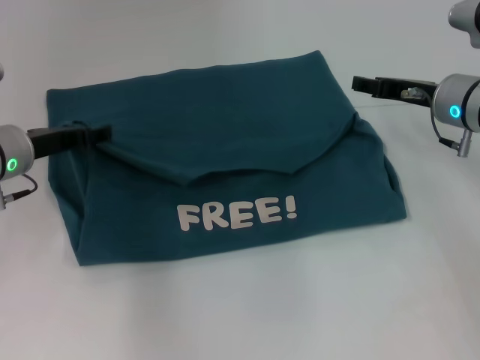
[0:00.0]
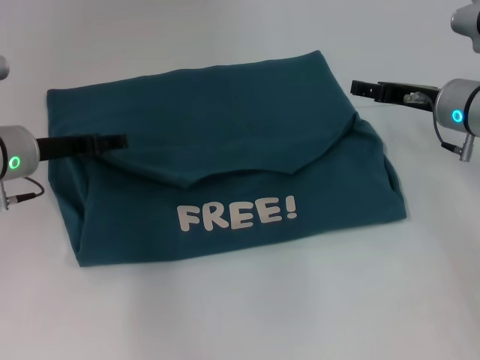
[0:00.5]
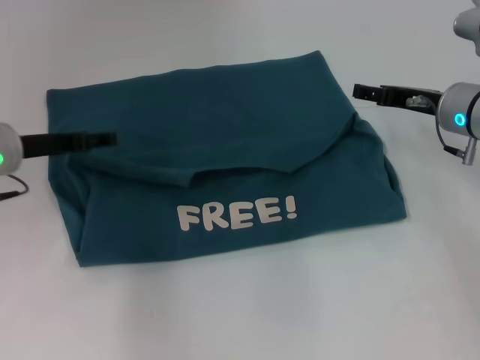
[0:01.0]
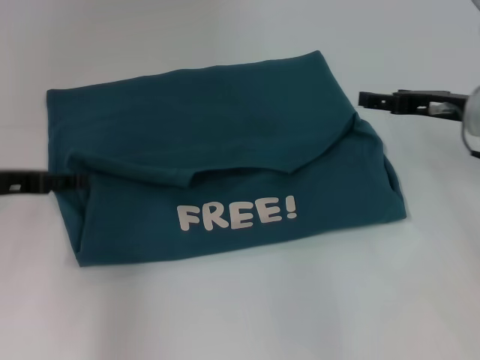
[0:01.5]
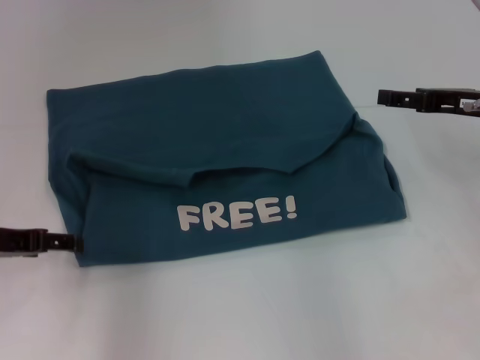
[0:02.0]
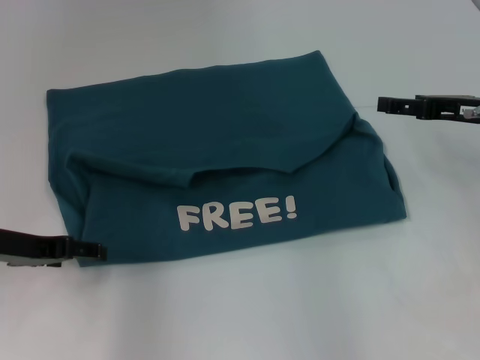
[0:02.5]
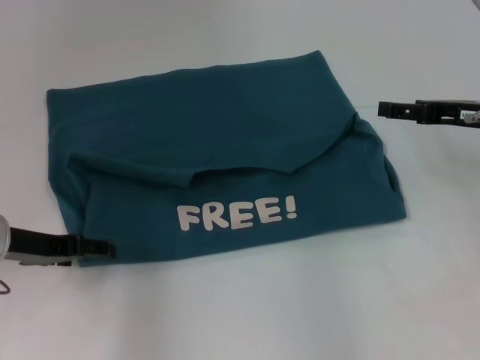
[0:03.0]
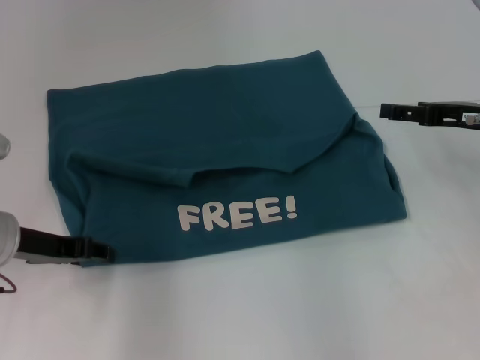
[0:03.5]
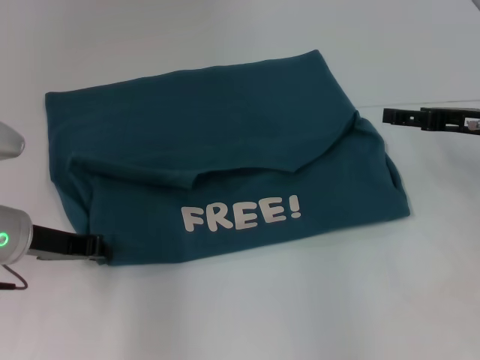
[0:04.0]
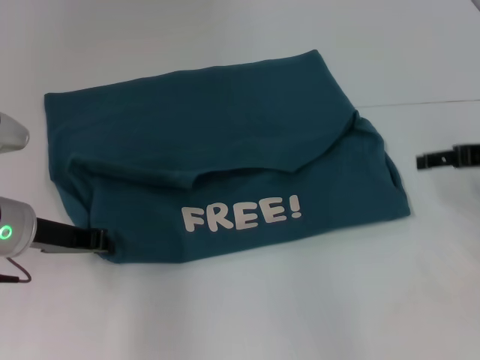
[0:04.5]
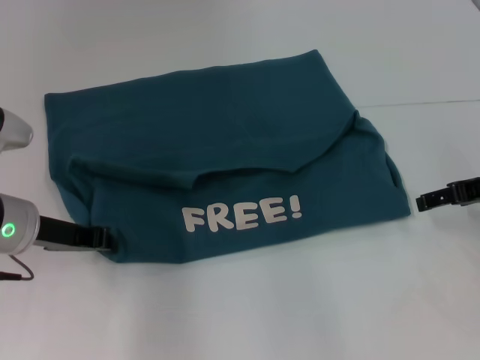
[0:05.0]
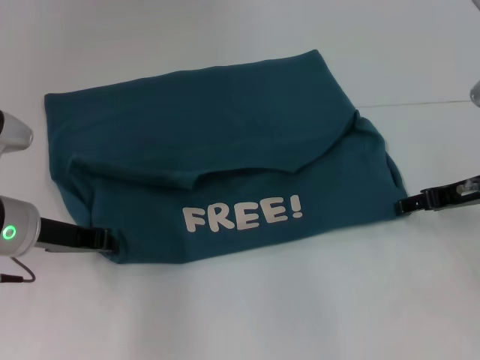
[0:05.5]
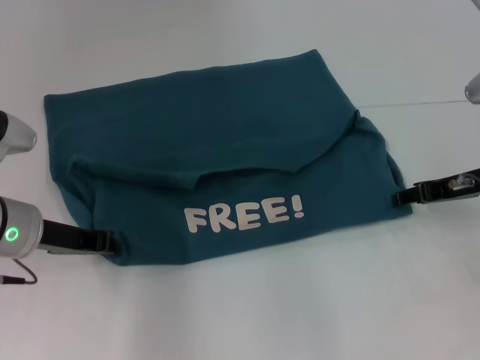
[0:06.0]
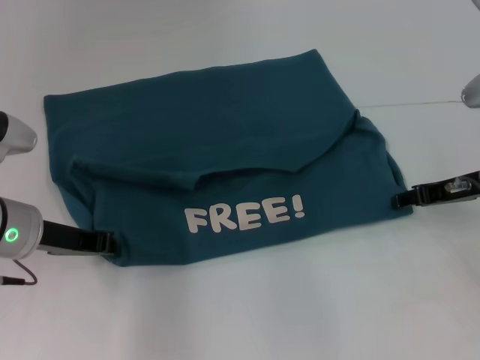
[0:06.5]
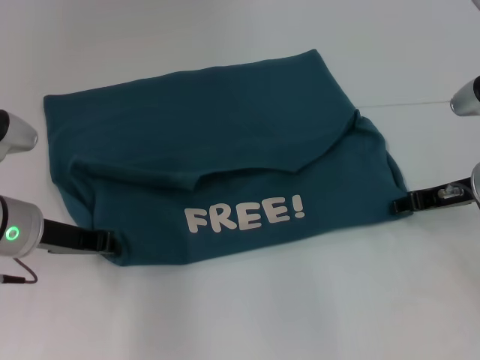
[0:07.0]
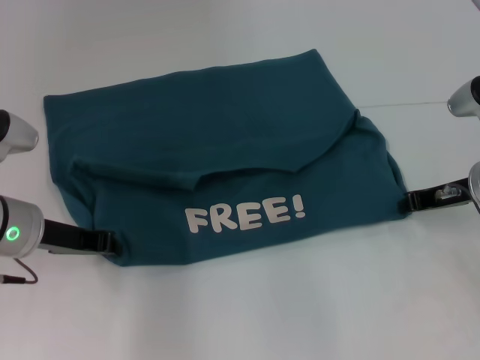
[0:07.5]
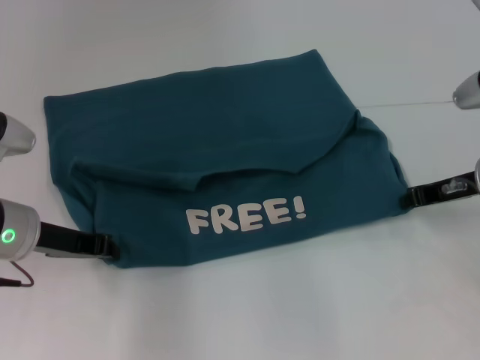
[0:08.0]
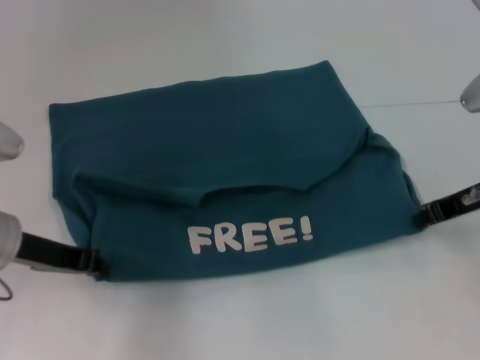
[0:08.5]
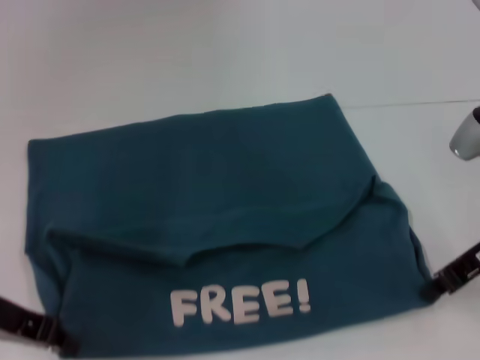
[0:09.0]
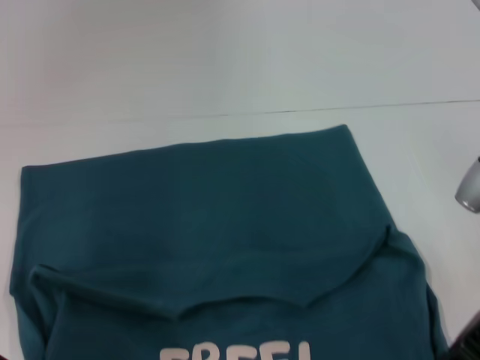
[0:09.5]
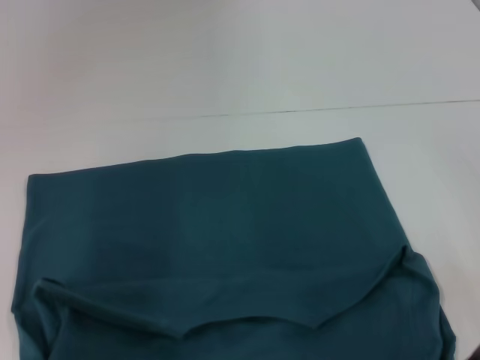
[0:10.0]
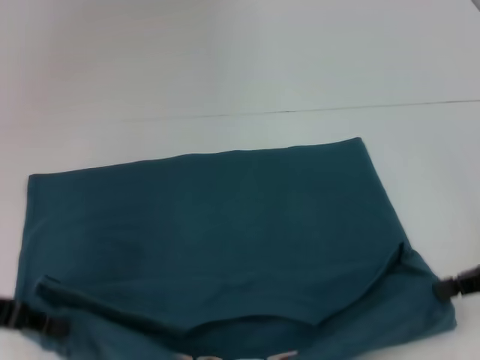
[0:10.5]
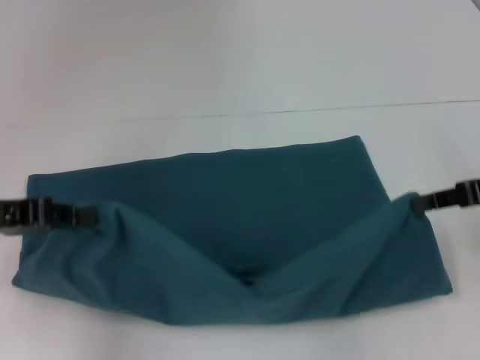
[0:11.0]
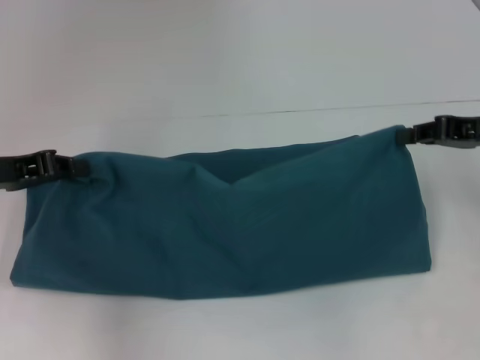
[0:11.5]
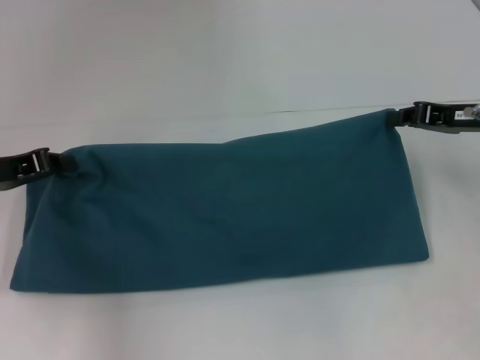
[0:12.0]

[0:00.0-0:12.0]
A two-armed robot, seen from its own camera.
Step, 0:01.0 to 0:09.5: Pull the clothes with your left hand.
Step, 0:01.0 to 0:09.5: Pull the clothes with your right hand.
0:00.0 to 0:02.0: The left gripper heads backward, covering some 10 cm, and opens, while the right gripper ends up roughly 10 cm from where it was, and opens.
0:02.0 to 0:04.0: The left gripper shifts approximately 5 cm to the right, and closes.
0:06.0 to 0:08.0: The right gripper closes.
0:08.0 to 0:10.0: Both grippers travel together backward, about 10 cm.
0:10.0 to 0:12.0: Both grippers travel together forward, some 10 cm.

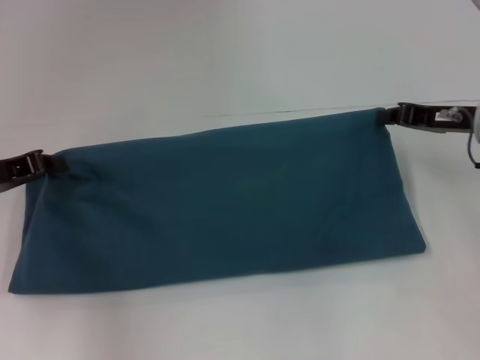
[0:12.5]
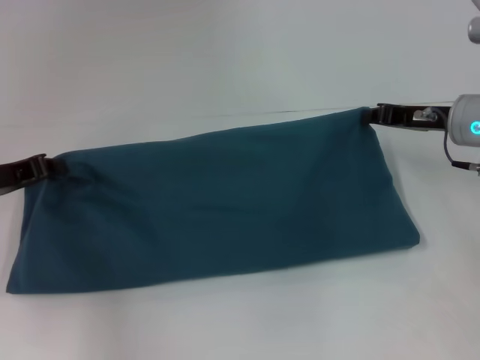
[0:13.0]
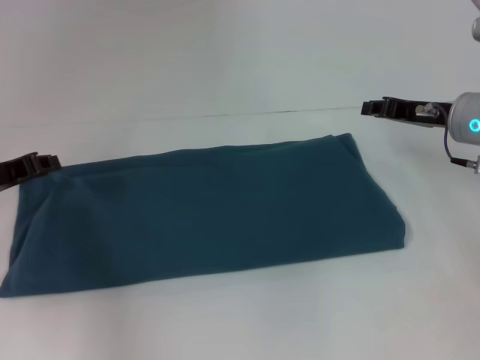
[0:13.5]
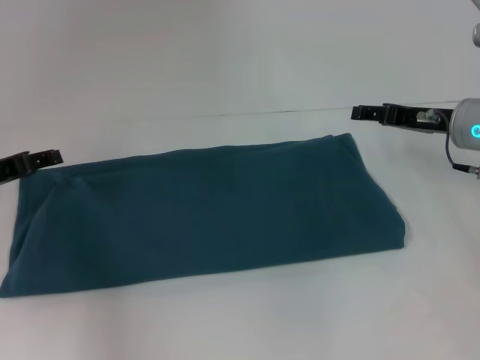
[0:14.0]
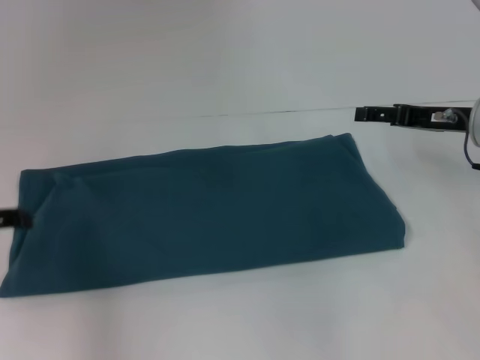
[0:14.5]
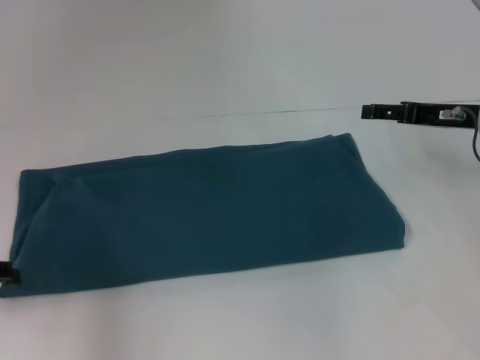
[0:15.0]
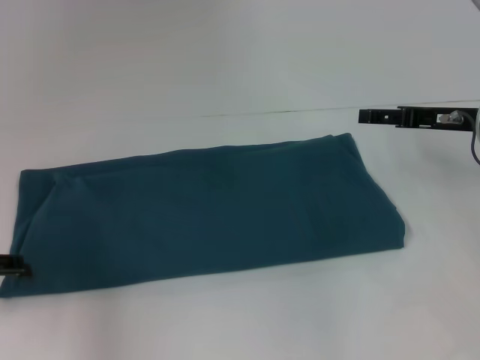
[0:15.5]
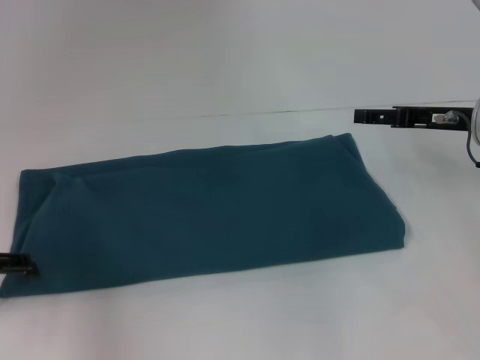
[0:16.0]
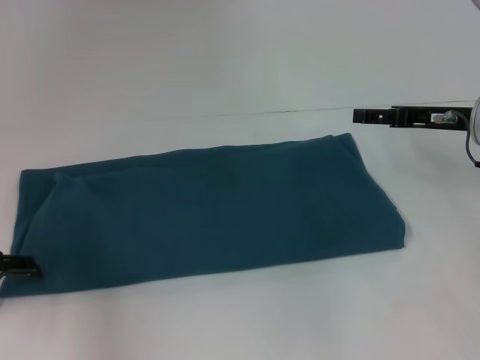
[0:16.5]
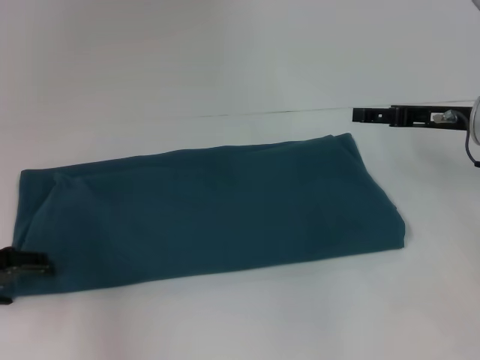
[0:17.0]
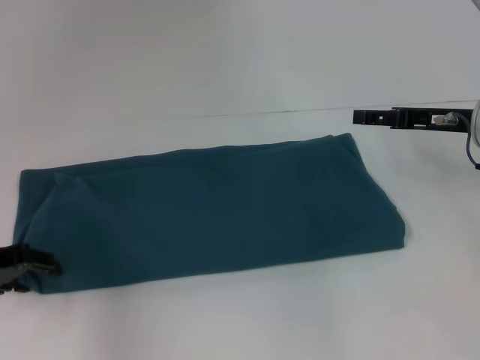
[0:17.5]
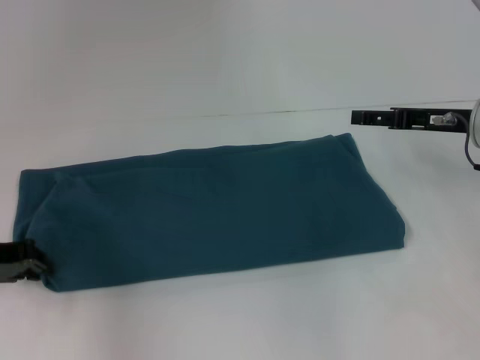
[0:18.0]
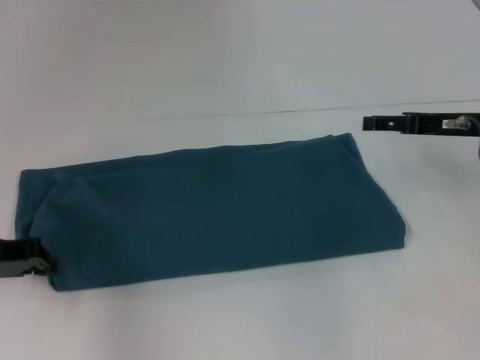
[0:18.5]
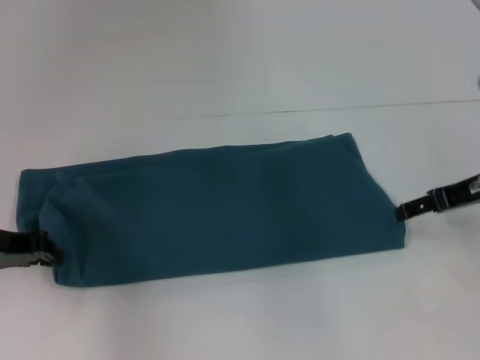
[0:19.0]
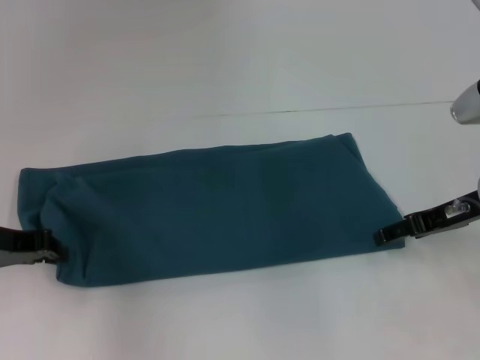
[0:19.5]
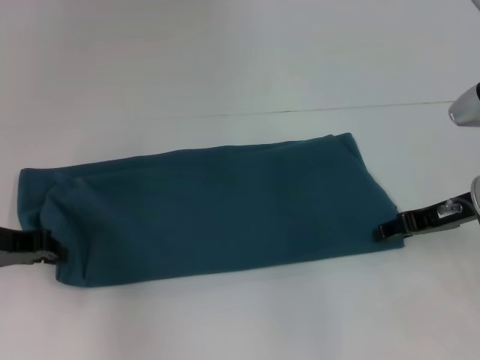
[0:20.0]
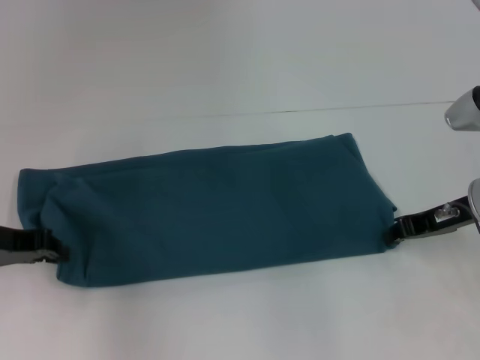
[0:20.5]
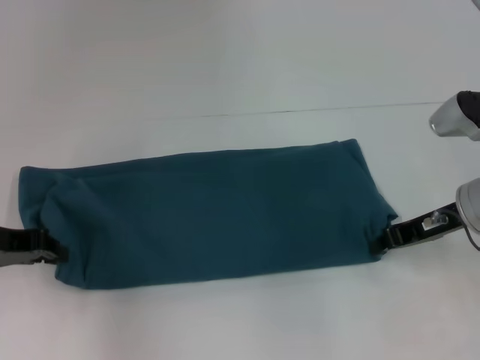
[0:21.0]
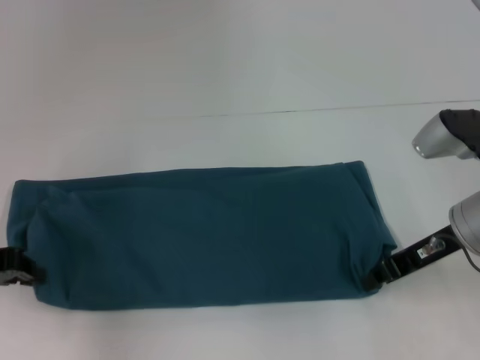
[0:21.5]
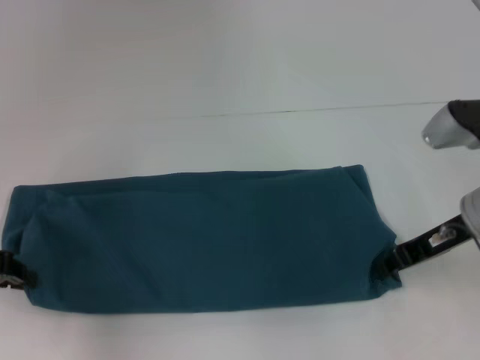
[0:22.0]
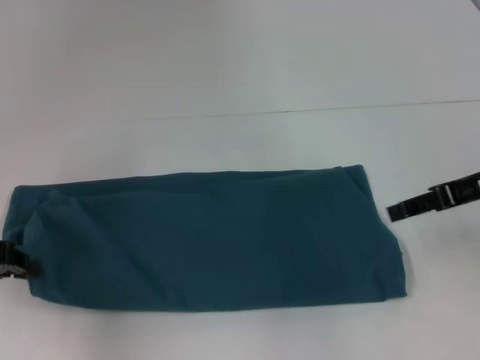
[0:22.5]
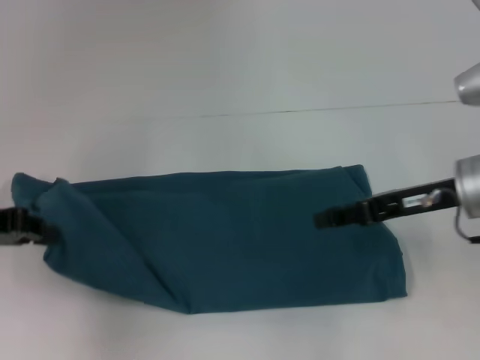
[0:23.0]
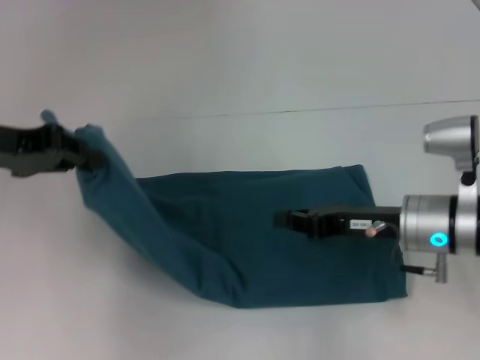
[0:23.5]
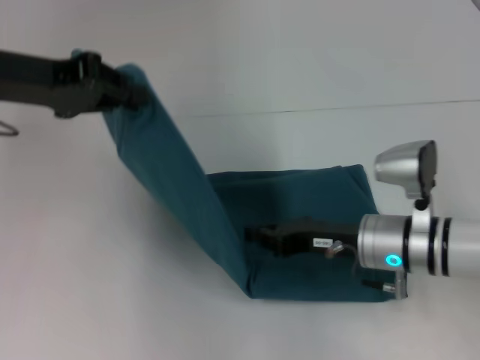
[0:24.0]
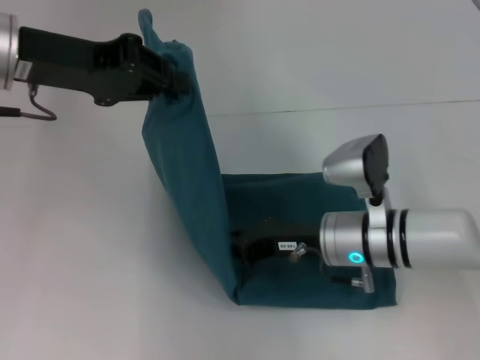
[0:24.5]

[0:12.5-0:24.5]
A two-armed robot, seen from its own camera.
0:12.5 to 0:14.5: The right gripper opens up; the left gripper changes place by some 5 cm, and opens.
0:14.5 to 0:16.5: The grippers move only a little.
0:16.5 to 0:18.5: The left gripper closes.
0:18.5 to 0:20.5: The right gripper shifts by roughly 5 cm, and closes.
0:20.5 to 0:22.5: The right gripper travels upward by approximately 5 cm.
0:22.5 to 0:24.5: The left gripper is displaced upward, to the right and forward by roughly 20 cm, while the right gripper shifts approximately 20 cm to the left and downward, and closes its fingers.

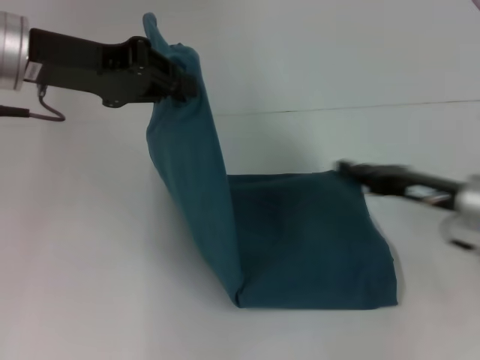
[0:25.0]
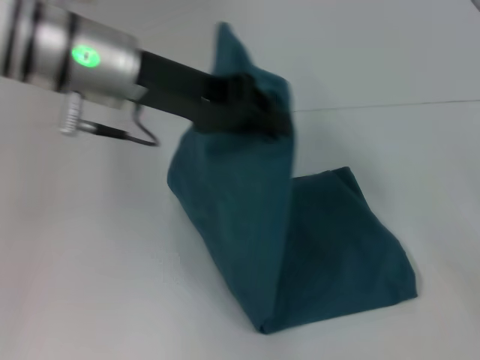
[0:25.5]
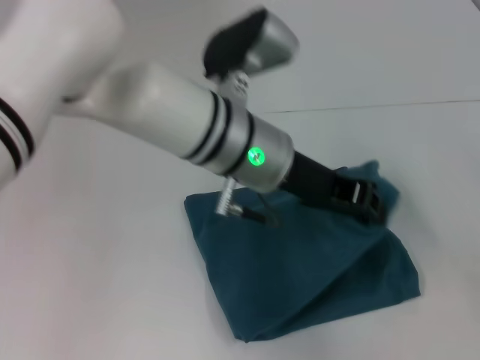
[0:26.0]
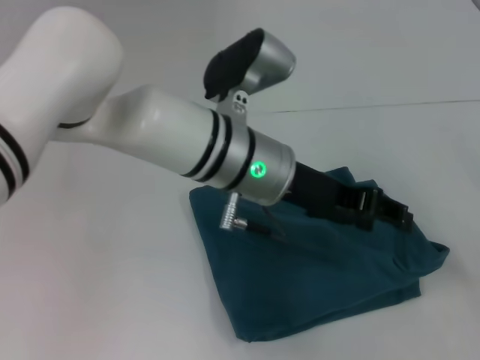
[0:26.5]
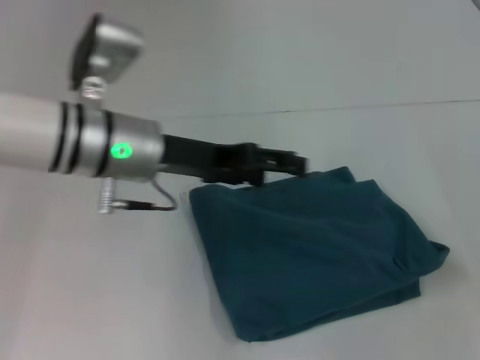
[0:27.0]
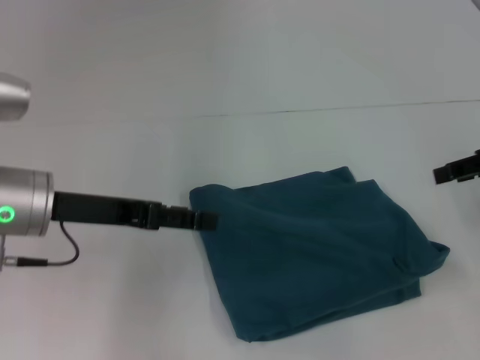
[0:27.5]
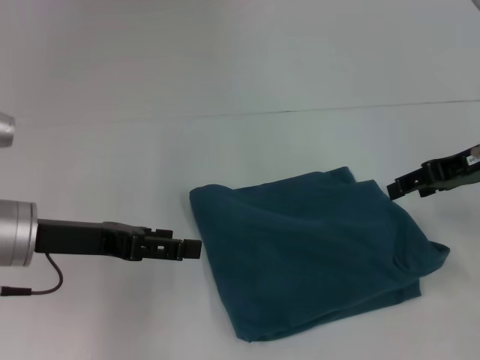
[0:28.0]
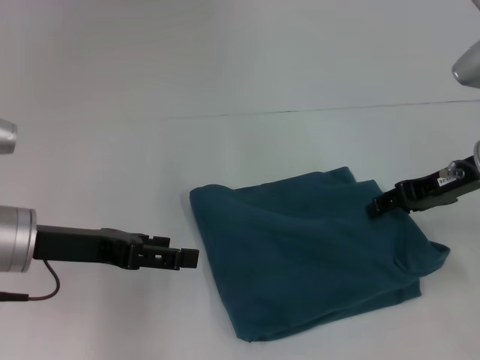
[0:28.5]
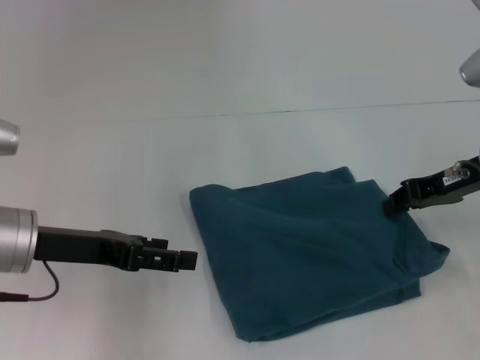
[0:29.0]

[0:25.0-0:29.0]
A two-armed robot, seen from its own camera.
Step, 0:25.0 to 0:26.0: Fold the clothes to the left.
0:25.0 to 0:27.0: The left gripper travels downward and to the right by about 10 cm, and opens its fingers; the right gripper moves to the right and upward, about 15 cm.
0:27.0 to 0:29.0: The left gripper travels to the left and backward by roughly 10 cm, while the right gripper goes roughly 15 cm to the left and forward, and opens, then closes again.
